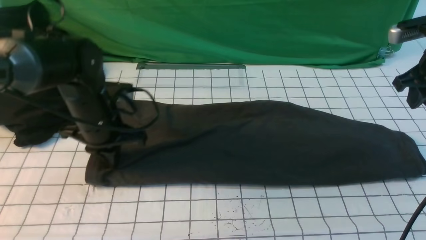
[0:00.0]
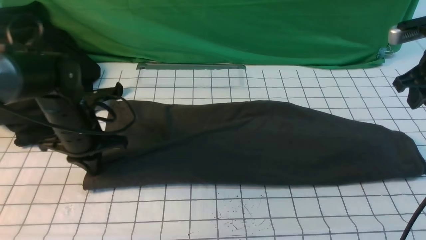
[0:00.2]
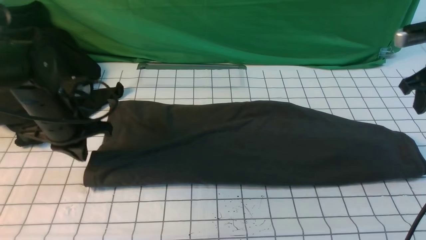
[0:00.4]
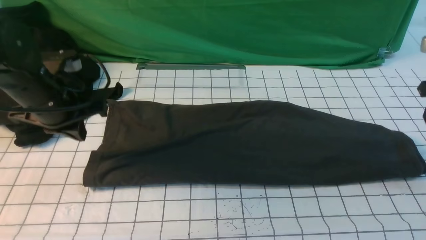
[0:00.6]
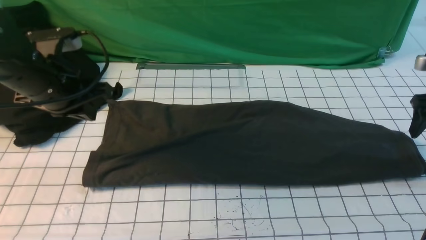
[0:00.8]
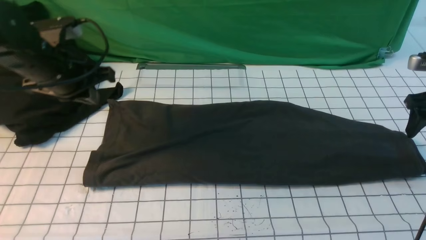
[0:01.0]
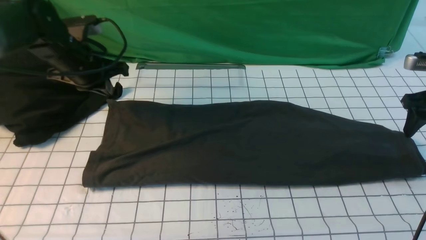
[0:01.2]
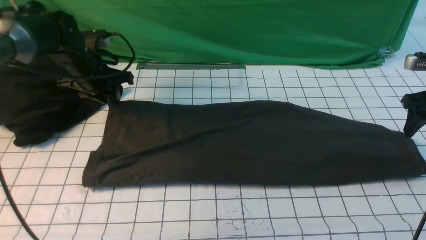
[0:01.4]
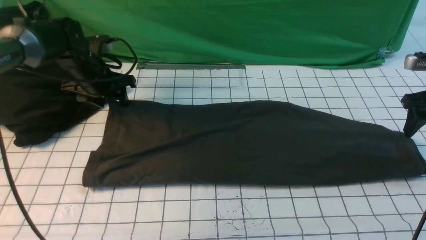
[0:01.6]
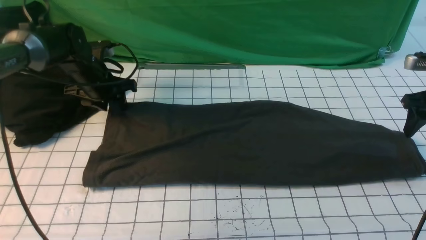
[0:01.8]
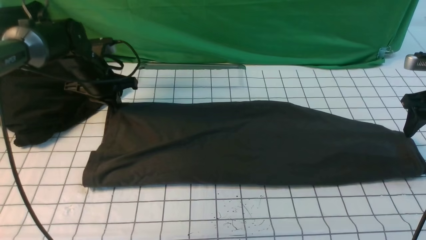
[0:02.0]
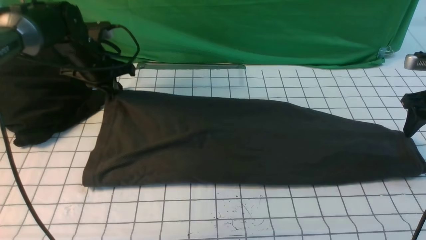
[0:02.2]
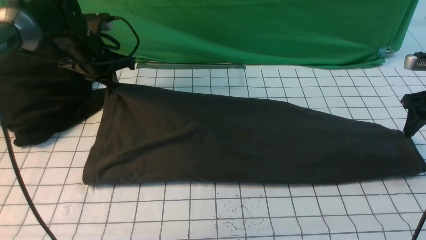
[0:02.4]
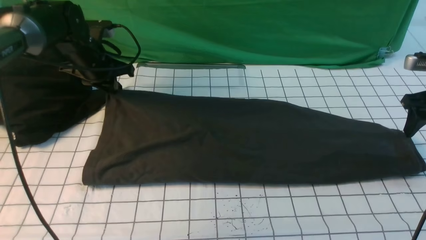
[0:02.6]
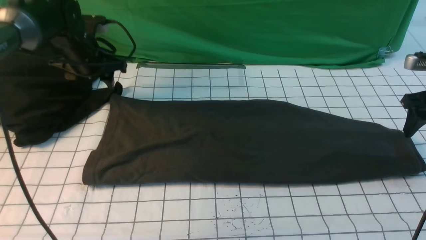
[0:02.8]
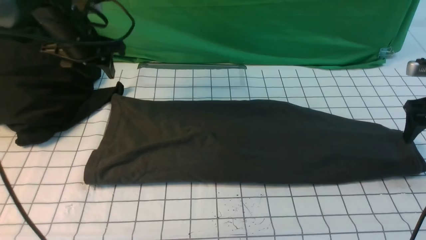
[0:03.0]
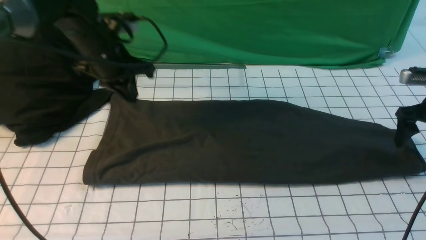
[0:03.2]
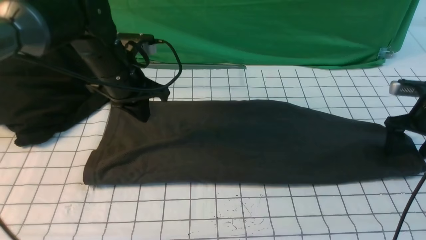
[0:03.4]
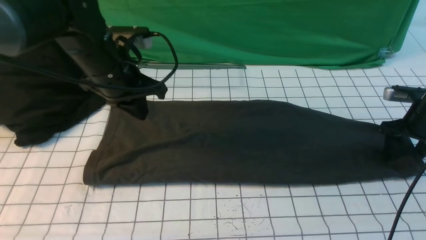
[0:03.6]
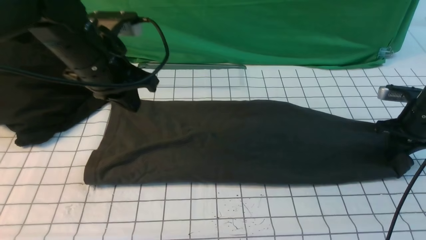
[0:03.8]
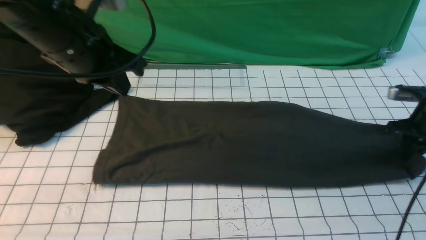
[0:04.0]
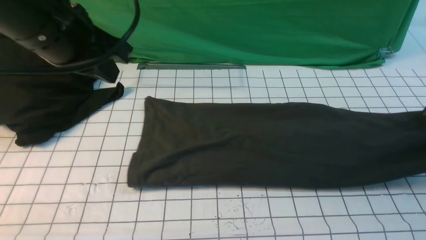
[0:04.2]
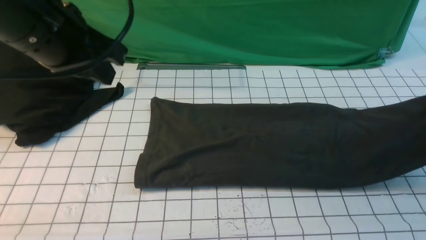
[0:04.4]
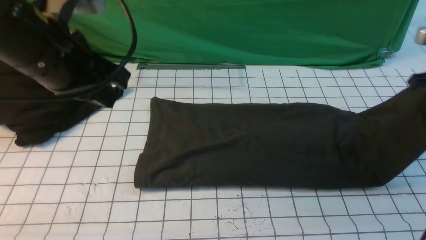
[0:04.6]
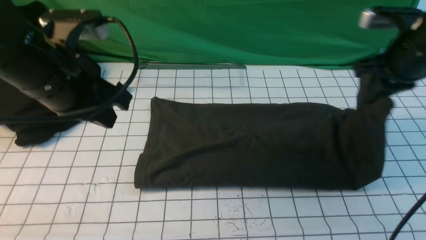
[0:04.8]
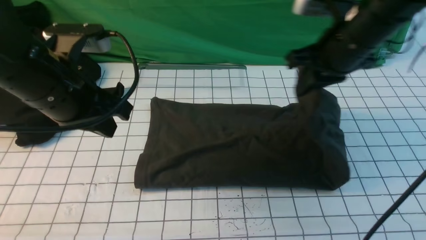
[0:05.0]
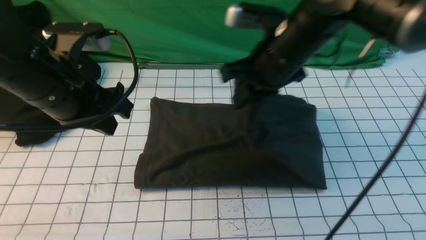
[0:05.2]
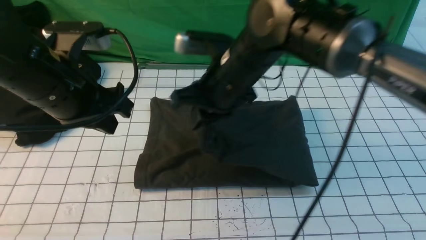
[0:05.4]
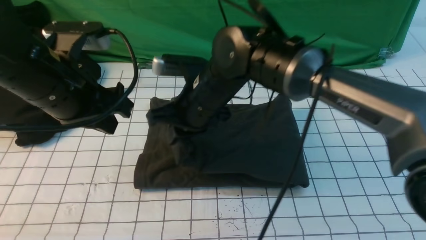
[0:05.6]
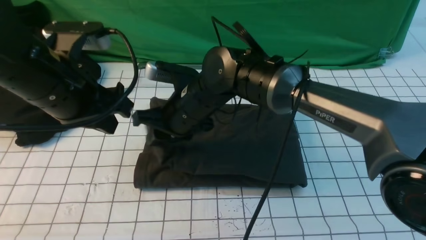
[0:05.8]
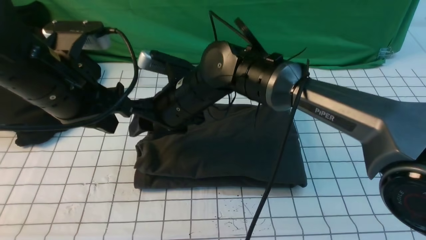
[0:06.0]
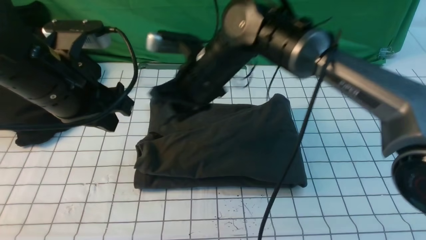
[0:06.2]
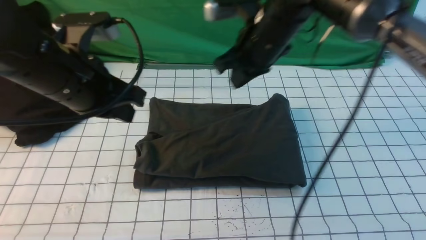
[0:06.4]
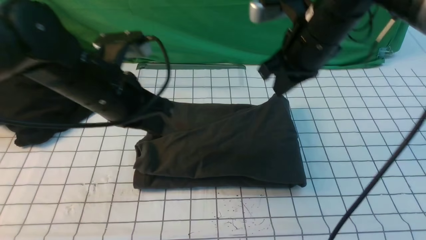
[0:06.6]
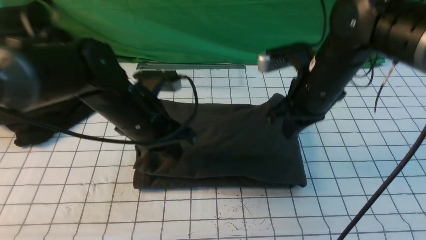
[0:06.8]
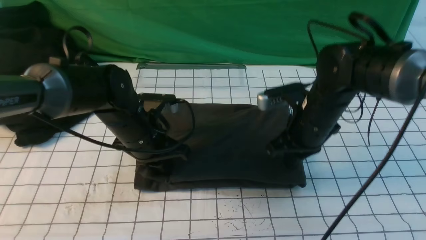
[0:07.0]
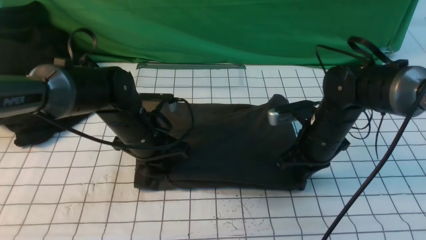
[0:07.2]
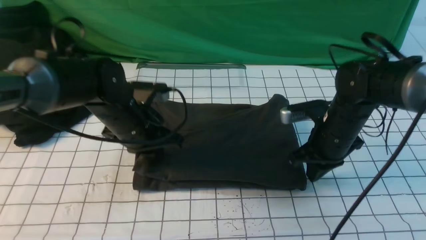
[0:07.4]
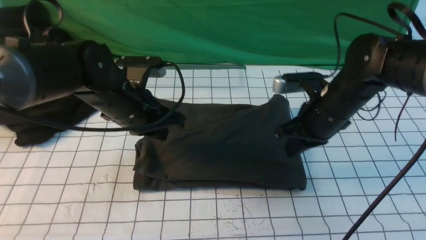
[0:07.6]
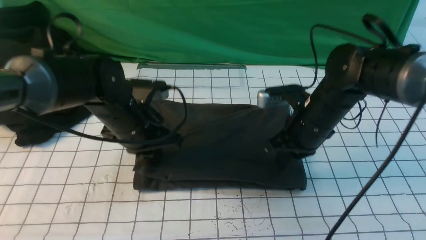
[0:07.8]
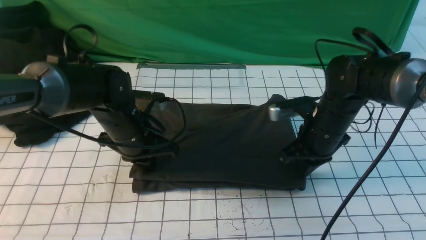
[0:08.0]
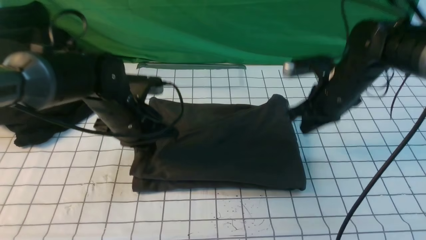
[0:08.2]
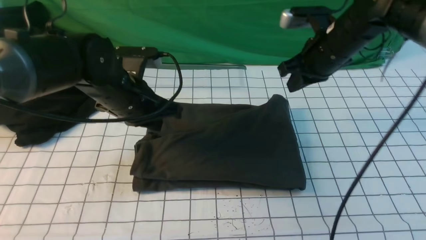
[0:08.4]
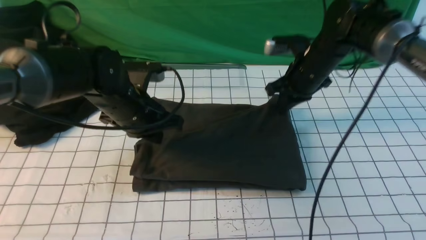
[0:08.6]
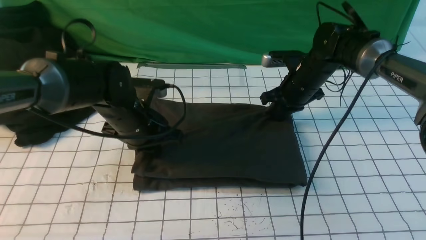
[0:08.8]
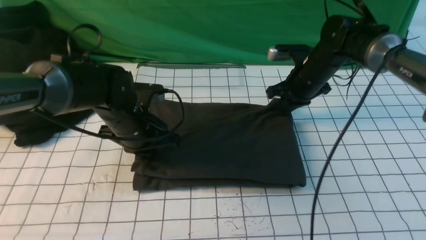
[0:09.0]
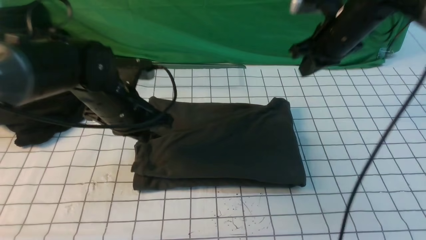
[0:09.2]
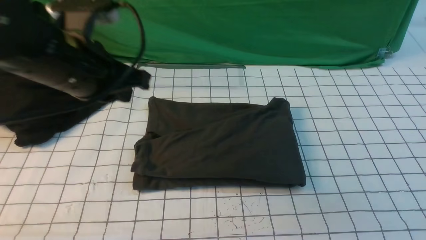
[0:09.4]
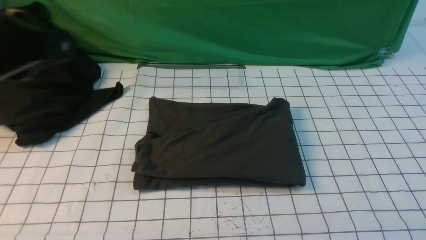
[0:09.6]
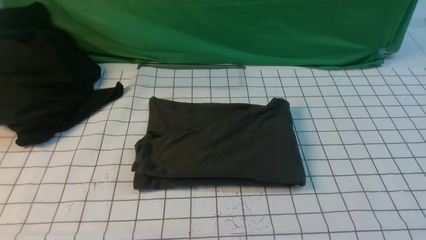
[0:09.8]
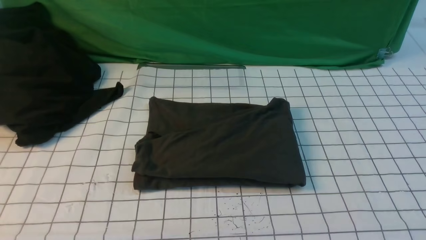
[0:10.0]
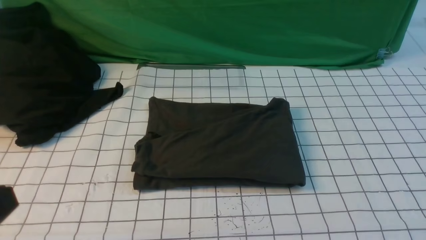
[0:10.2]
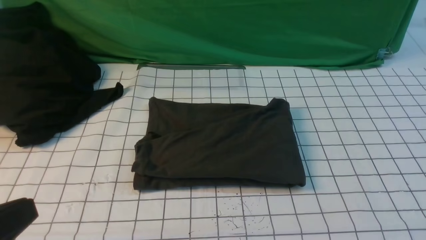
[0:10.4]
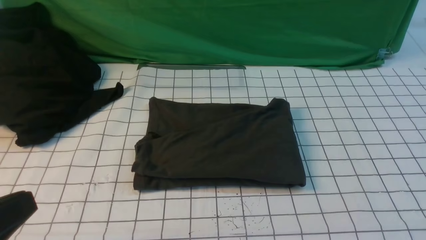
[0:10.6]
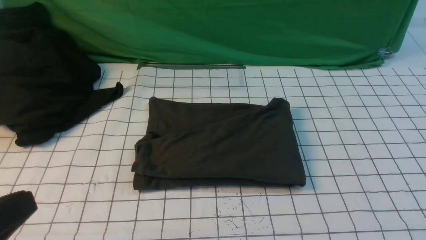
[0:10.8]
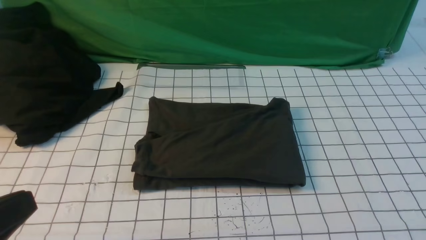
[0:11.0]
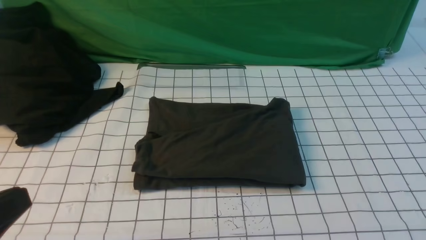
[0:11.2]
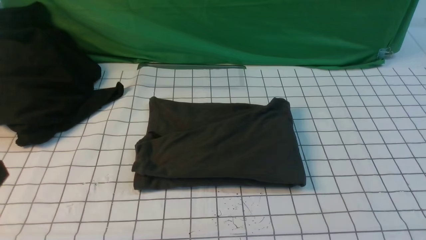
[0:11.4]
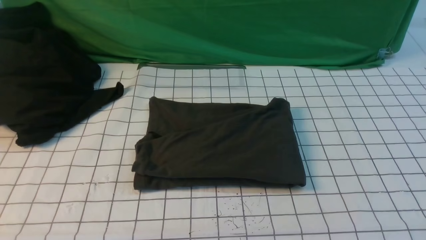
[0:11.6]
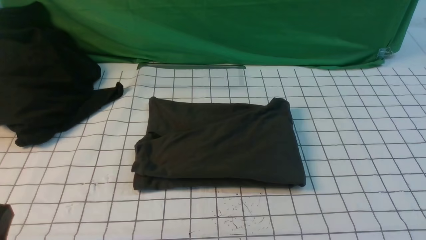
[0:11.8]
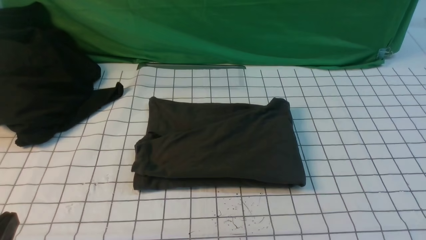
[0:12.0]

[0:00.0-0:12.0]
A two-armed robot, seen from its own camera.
Step, 0:00.0 to 0:03.6: use the right arm to clamp the right edge of the fabric.
Step, 0:04.0 to 0:05.8: use the right arm to drag the right edge of the fabric to the left and folds it over the left edge.
0:00.0 to 0:01.6: The left gripper heads forward, covering approximately 10 cm, and opens, while the right gripper travels downward by some 5 cm, and opens up.
0:01.6 to 0:03.0: The left gripper is displaced upward by some 10 cm, and closes, then opens again.
0:03.0 to 0:04.4: The left gripper heads backward and upward, covering some 20 cm, and closes its fingers; the right gripper closes up.
0:04.4 to 0:06.0: The right gripper travels to the left by some 40 cm, and opens its fingers. Meanwhile the left gripper is displaced downward by roughly 5 cm.
0:06.0 to 0:07.6: The right gripper shifts about 20 cm to the right, and closes. The left gripper goes roughly 15 cm downward, forward and to the right.
0:07.6 to 0:09.0: The right gripper shifts about 10 cm forward.
0:09.0 to 0:10.4: The left gripper goes some 30 cm backward; the right gripper heads backward, covering some 50 cm.
0:10.4 to 0:12.0: The left gripper is displaced downward by roughly 10 cm.

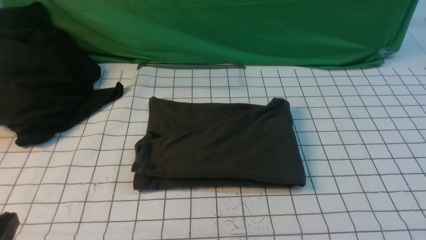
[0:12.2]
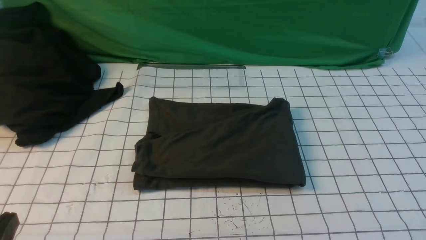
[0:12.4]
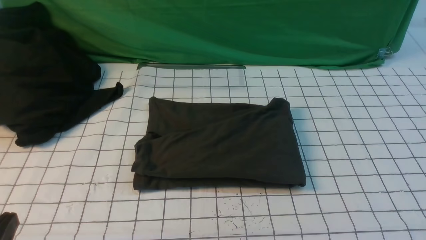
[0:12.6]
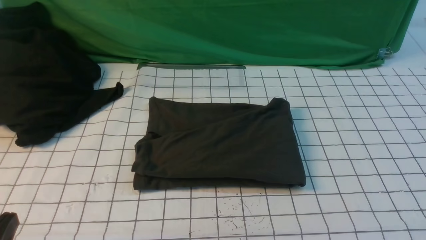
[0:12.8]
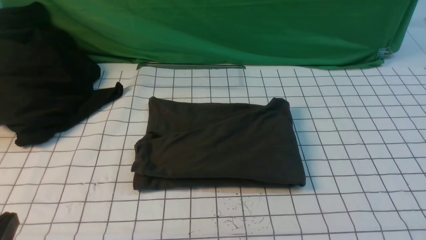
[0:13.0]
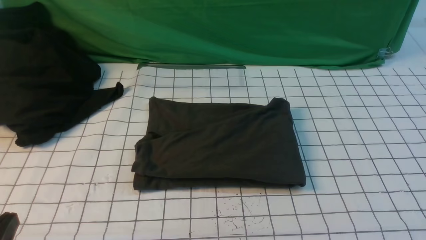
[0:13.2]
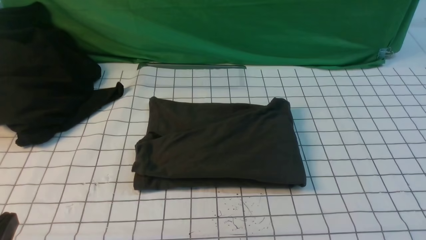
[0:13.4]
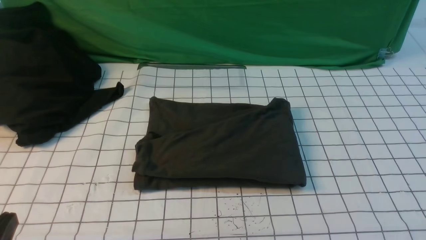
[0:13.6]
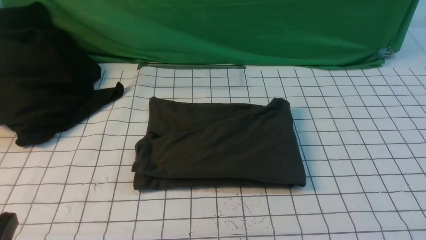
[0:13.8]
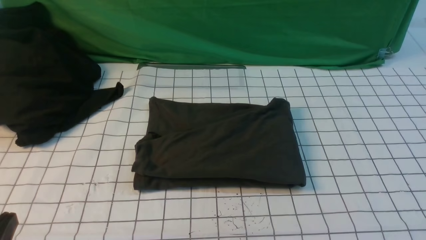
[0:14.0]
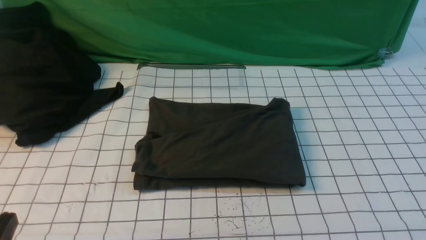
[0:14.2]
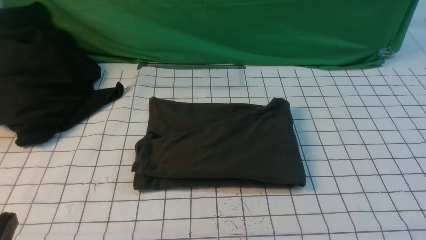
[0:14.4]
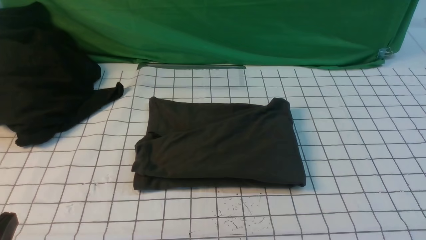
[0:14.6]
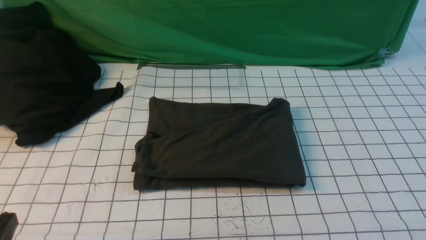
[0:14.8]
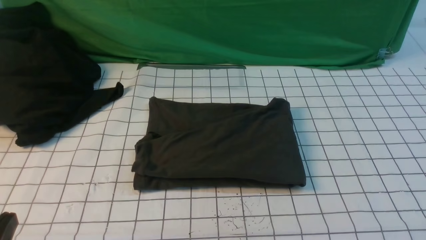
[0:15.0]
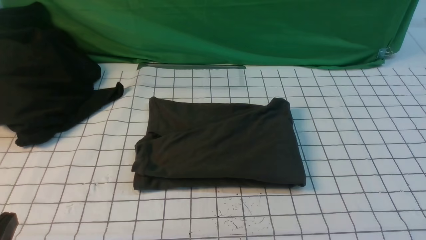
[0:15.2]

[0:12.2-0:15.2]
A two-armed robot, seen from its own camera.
0:13.8 to 0:15.2: Neither gripper changes place.
